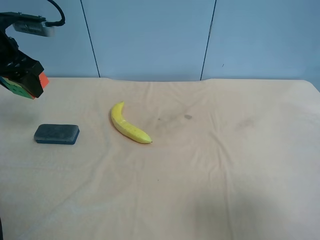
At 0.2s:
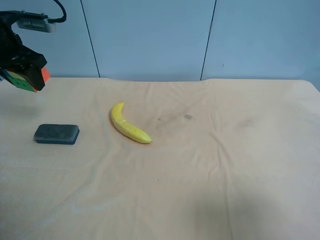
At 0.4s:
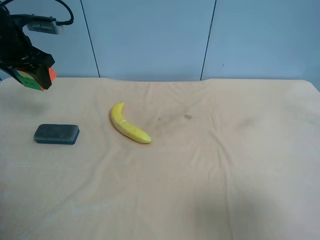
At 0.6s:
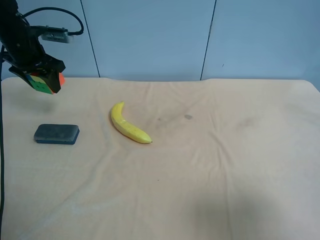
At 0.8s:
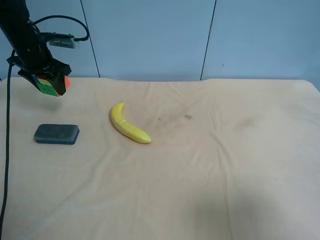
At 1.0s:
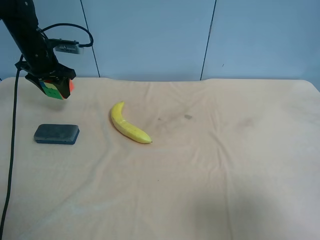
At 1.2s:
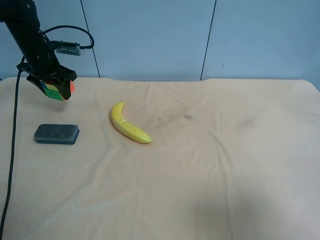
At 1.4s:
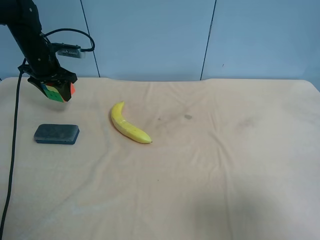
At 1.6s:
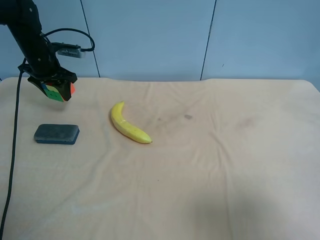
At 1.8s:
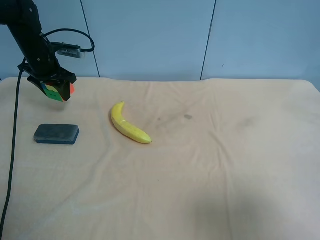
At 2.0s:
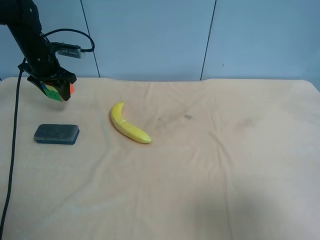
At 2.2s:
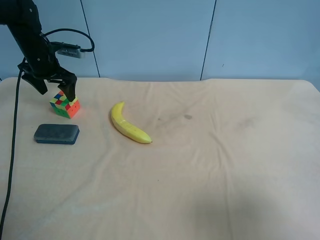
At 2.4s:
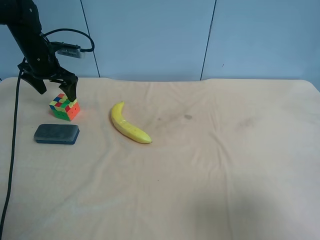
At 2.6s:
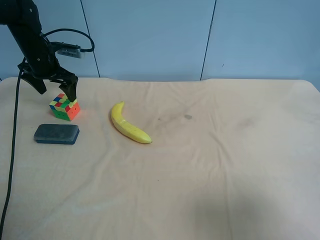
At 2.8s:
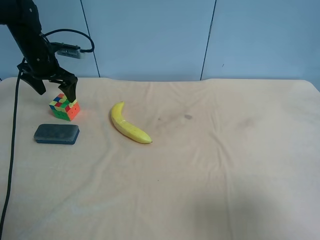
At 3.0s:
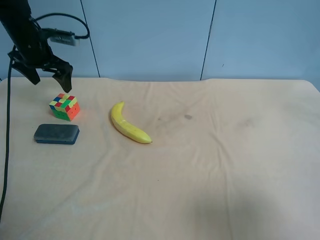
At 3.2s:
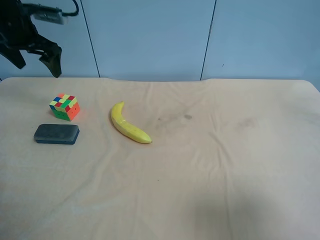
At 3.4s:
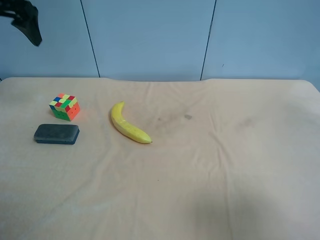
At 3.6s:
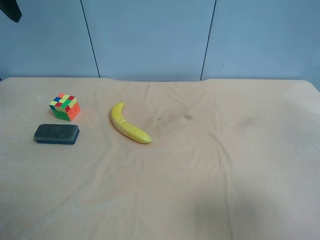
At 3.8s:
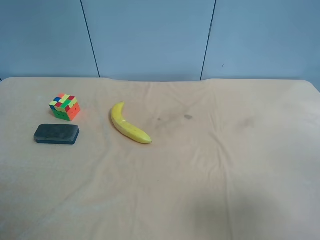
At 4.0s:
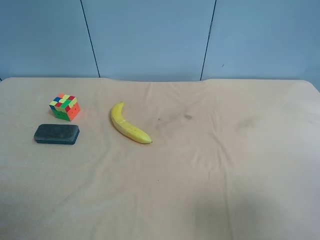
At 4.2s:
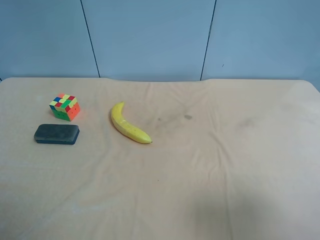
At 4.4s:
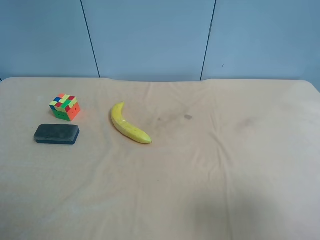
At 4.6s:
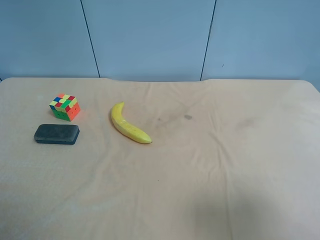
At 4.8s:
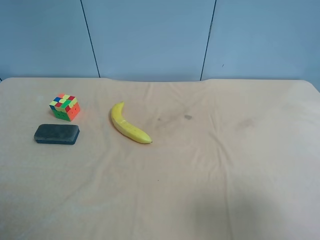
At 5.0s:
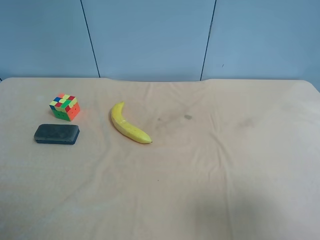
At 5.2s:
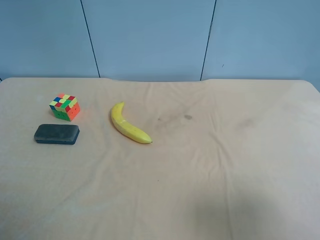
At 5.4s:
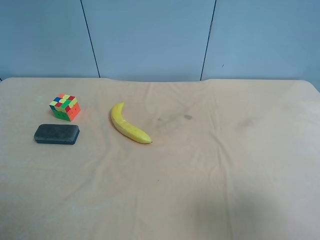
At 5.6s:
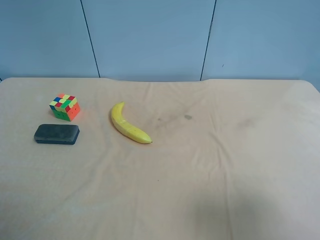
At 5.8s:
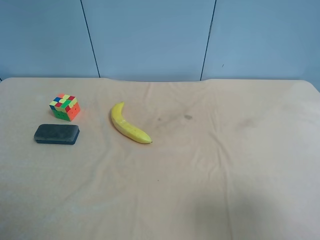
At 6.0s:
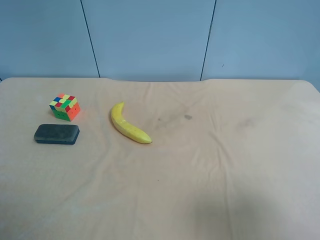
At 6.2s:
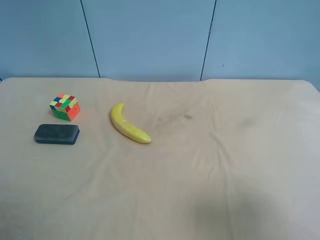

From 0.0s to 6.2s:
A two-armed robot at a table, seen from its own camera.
Task of the whole recording: use the right gripper to pick up the item and transfer it from the right gripper to the left gripper.
From 0.0s to 1.6s: The left gripper moves forward and downward, about 15 cm.
From 1.6s to 3.2s: The left gripper shifts some 10 cm upward, and opens its fingers.
From 3.2s to 4.6s: The left gripper shifts about 40 cm backward.
